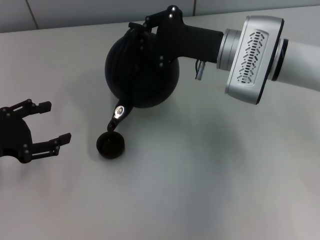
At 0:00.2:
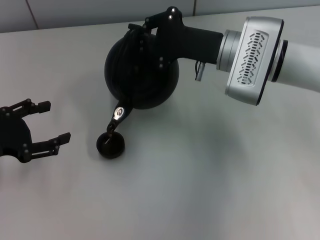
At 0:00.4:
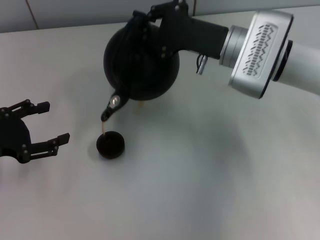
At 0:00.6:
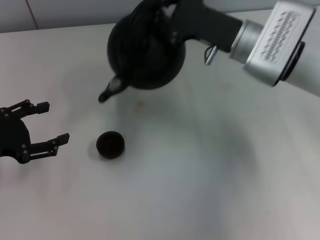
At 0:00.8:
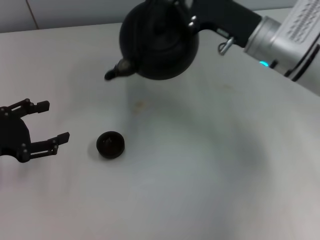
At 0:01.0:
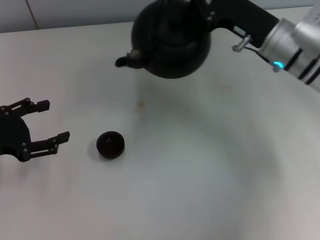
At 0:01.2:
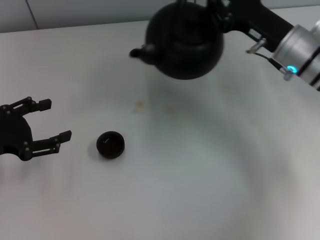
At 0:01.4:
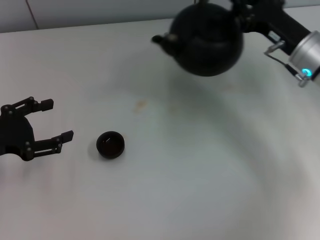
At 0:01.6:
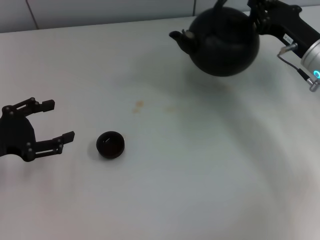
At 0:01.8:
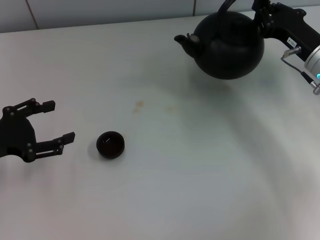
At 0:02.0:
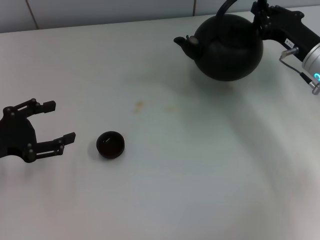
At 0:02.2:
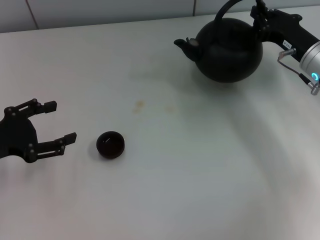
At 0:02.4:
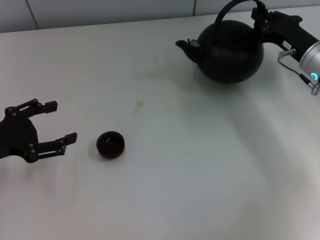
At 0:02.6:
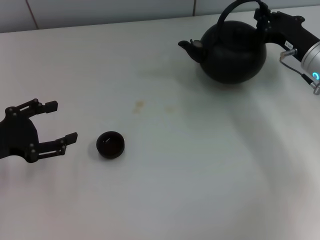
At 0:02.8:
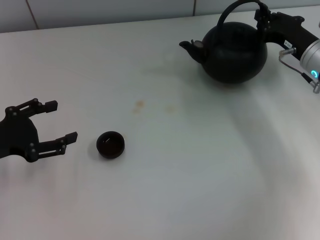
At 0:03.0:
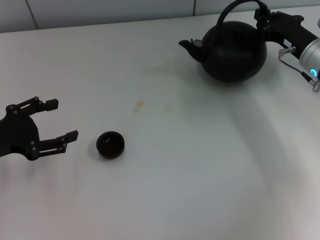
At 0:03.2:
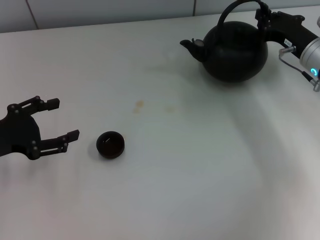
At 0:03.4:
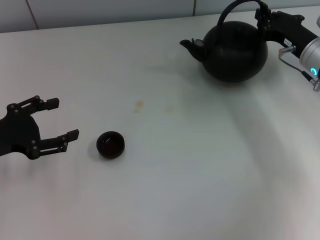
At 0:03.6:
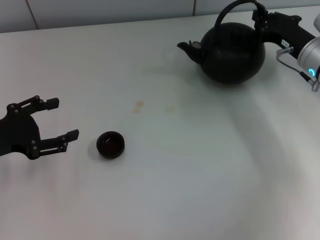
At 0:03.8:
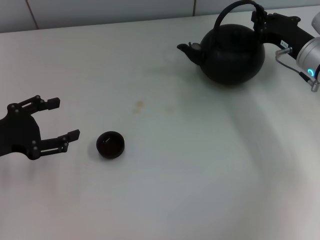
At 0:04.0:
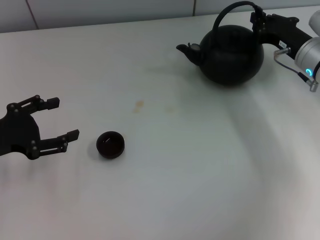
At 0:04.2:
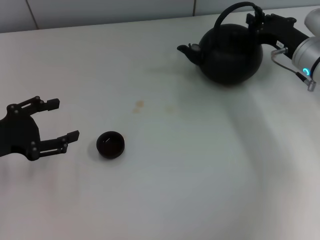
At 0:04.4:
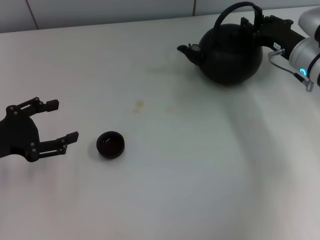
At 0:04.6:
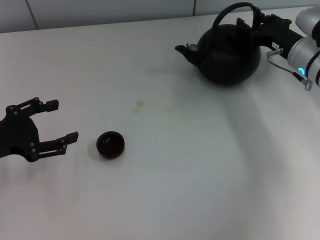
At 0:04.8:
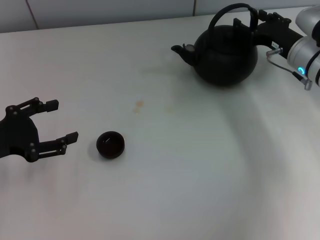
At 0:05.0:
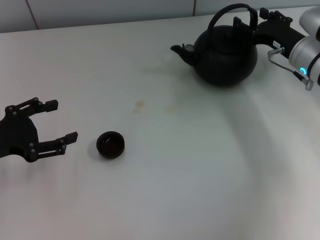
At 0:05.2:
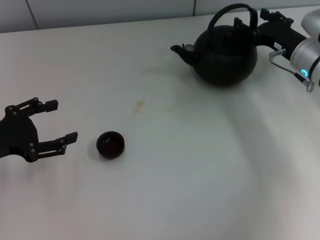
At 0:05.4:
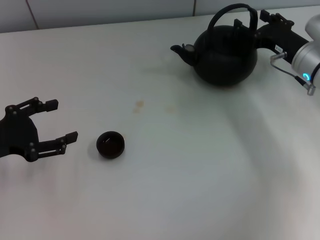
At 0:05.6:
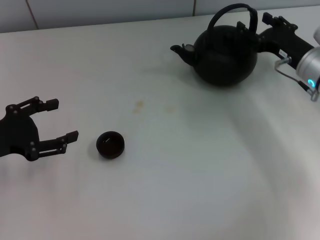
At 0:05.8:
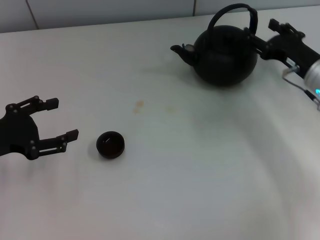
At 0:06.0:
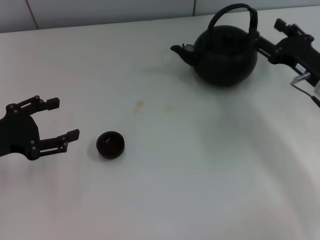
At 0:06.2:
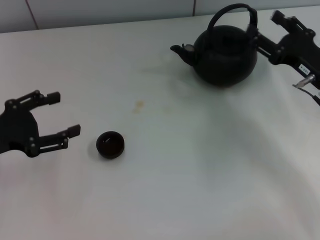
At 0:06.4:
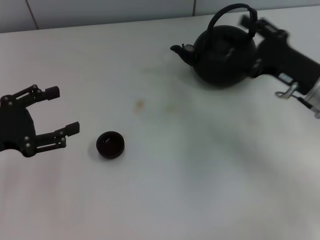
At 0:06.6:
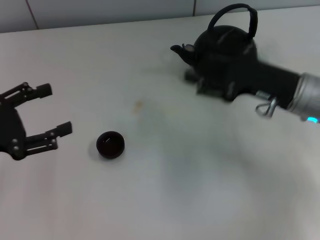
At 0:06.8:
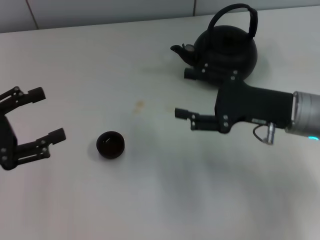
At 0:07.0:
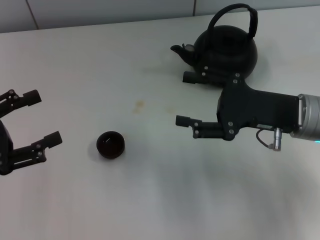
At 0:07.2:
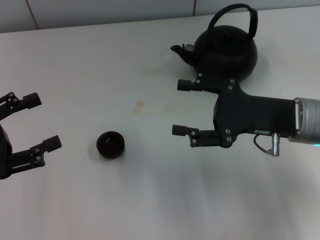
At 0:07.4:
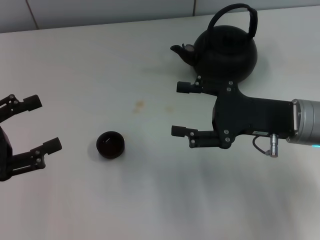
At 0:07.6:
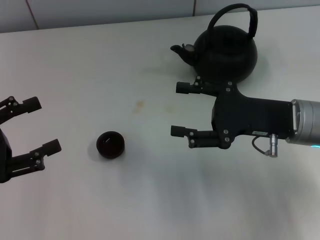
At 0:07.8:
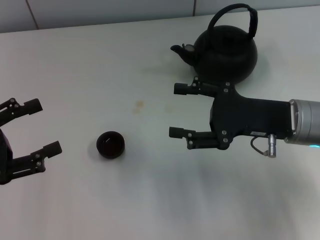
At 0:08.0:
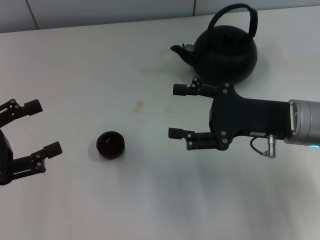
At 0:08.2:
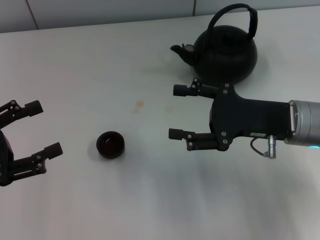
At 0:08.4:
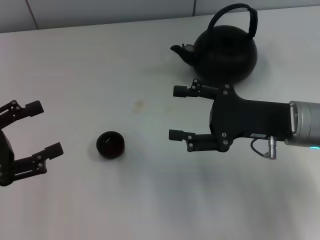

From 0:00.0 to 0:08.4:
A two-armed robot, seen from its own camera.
Task of the whole recording: Grasp the handle of the teapot with one hand and pour tea into the teacup.
Step, from 0:00.8 to 0:05.8: Put down the teapot with the right gripper.
From 0:00.0 to 0:01.4: The right gripper moves to the right, approximately 10 cm.
From 0:01.4 to 0:02.8: The grippers move only a little.
From 0:02.8 to 0:04.2: Both grippers stay about where they are.
From 0:04.2 to 0:05.6: The right gripper opens its fingers.
From 0:05.6 to 0:07.0: The left gripper shifts by some 5 cm; the right gripper goes about 10 cm backward.
From 0:07.0 to 0:08.4: The grippers make only small movements.
